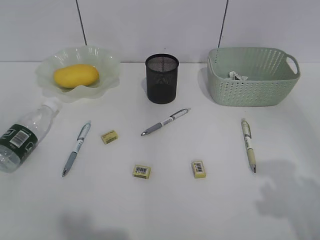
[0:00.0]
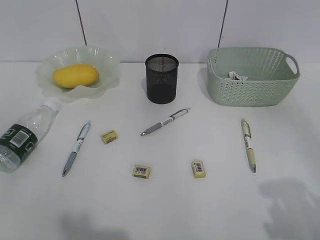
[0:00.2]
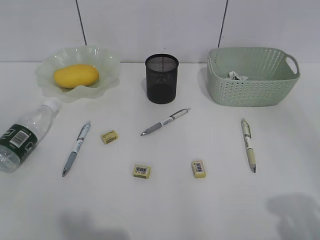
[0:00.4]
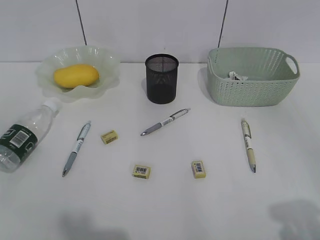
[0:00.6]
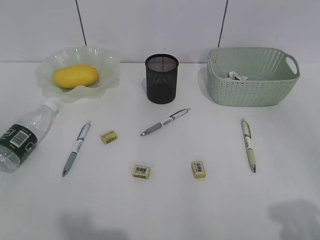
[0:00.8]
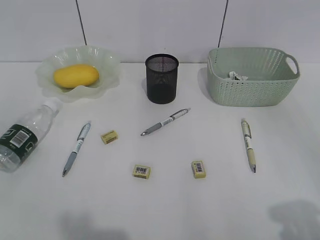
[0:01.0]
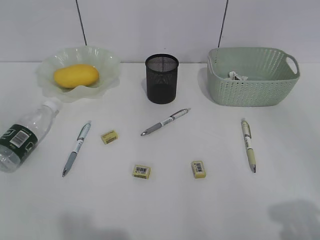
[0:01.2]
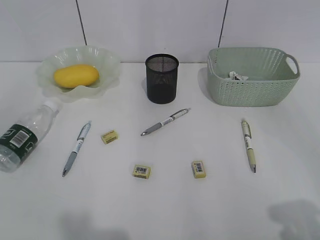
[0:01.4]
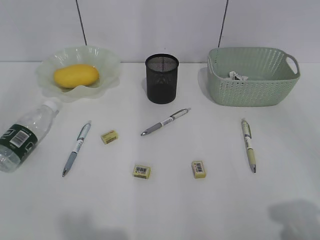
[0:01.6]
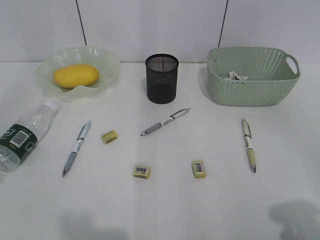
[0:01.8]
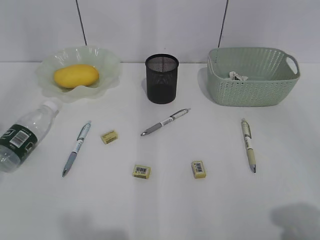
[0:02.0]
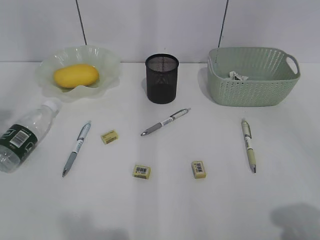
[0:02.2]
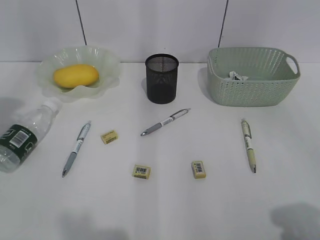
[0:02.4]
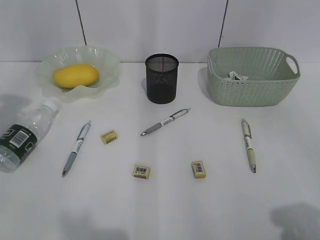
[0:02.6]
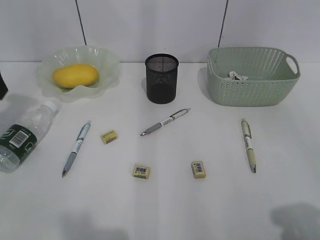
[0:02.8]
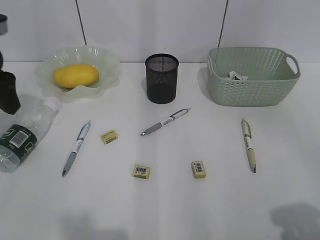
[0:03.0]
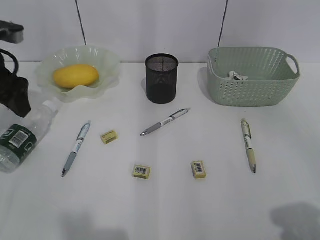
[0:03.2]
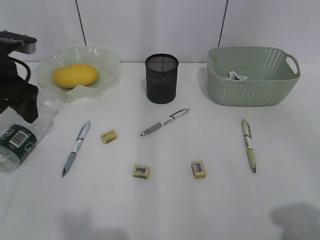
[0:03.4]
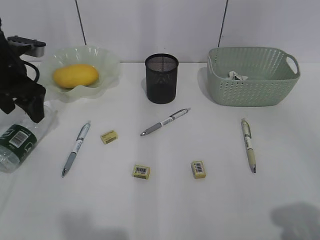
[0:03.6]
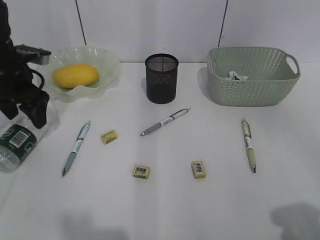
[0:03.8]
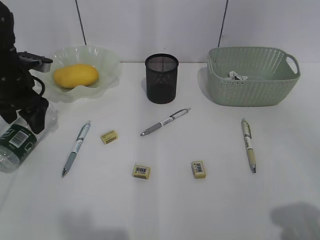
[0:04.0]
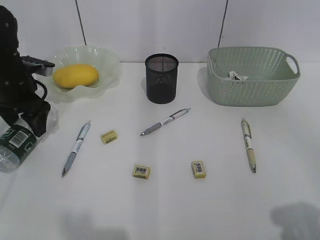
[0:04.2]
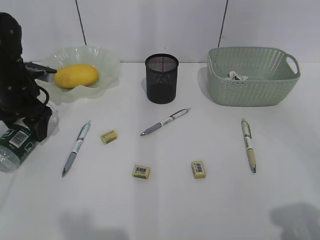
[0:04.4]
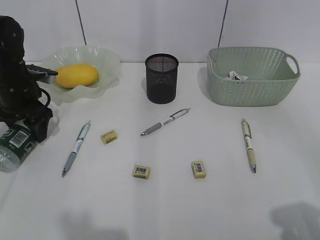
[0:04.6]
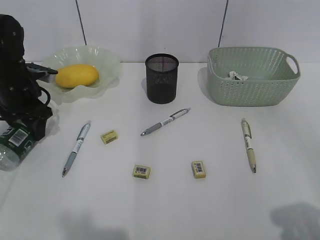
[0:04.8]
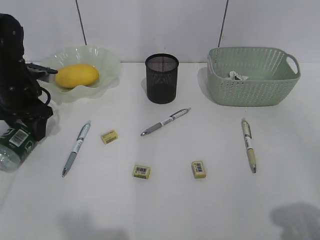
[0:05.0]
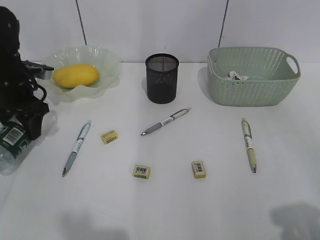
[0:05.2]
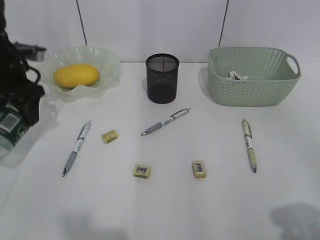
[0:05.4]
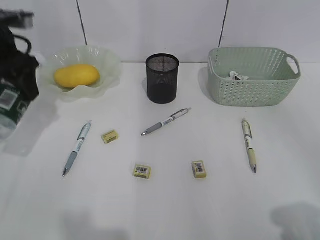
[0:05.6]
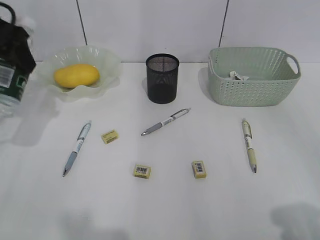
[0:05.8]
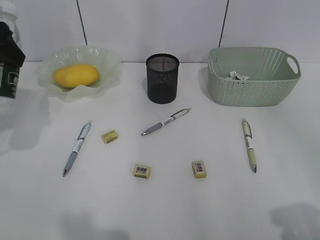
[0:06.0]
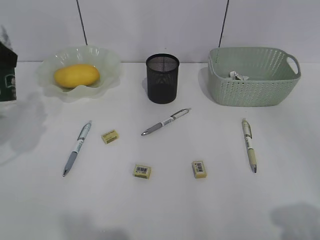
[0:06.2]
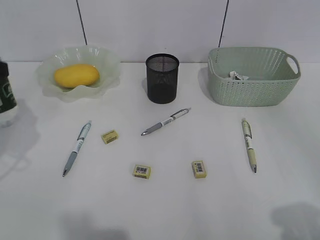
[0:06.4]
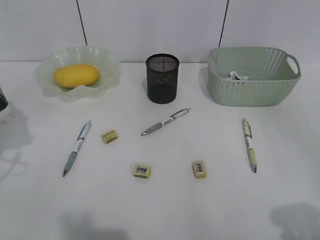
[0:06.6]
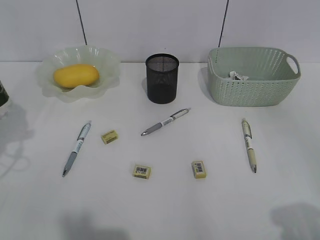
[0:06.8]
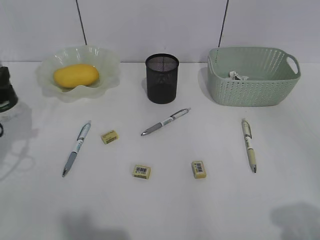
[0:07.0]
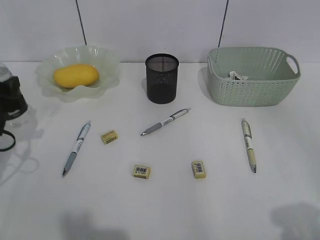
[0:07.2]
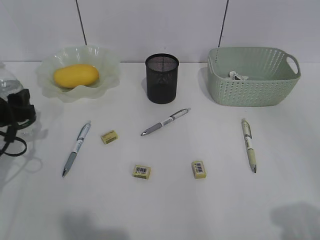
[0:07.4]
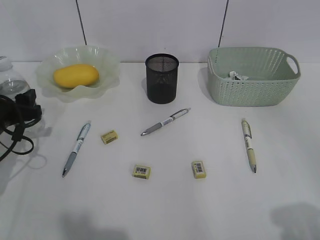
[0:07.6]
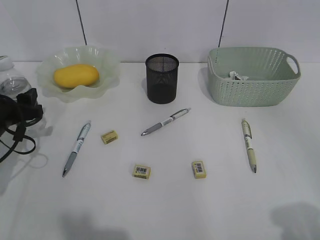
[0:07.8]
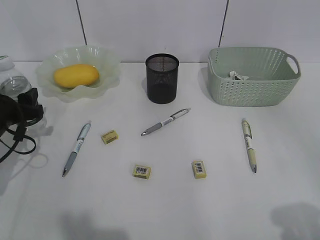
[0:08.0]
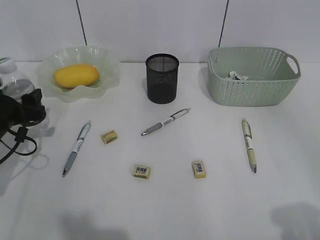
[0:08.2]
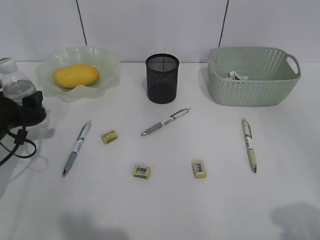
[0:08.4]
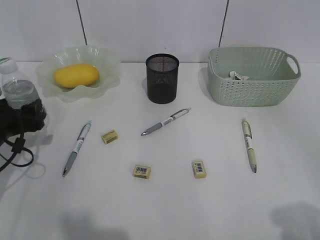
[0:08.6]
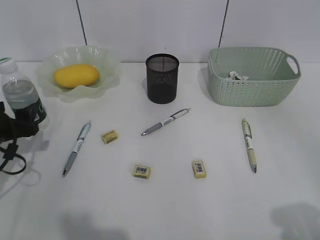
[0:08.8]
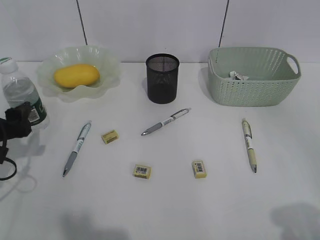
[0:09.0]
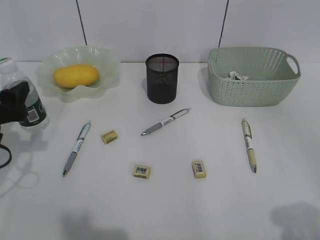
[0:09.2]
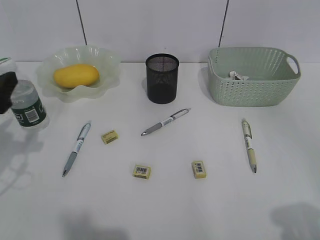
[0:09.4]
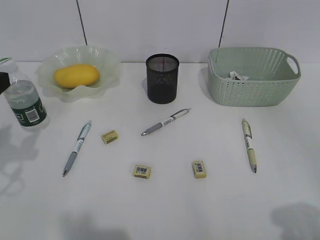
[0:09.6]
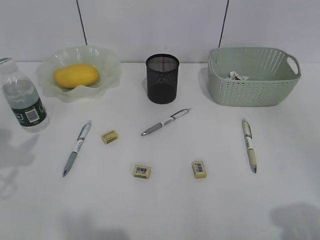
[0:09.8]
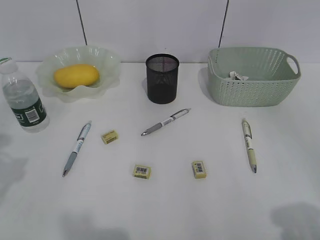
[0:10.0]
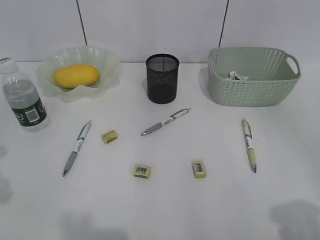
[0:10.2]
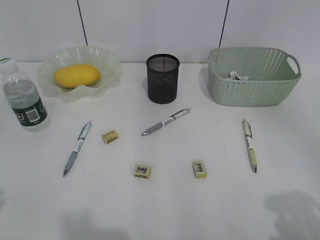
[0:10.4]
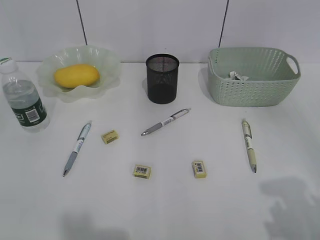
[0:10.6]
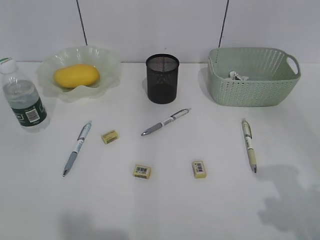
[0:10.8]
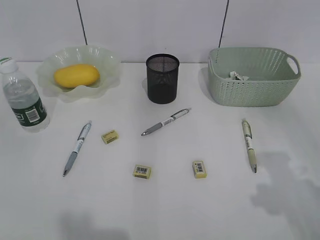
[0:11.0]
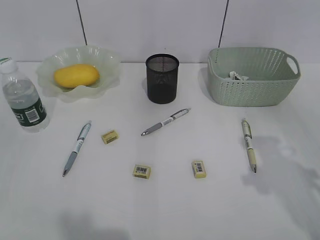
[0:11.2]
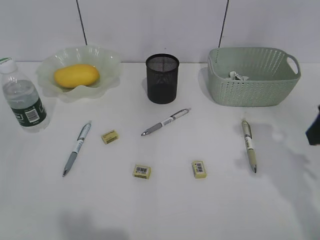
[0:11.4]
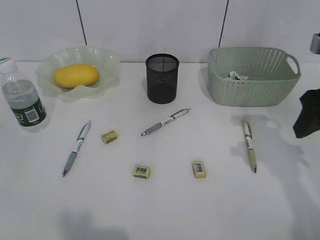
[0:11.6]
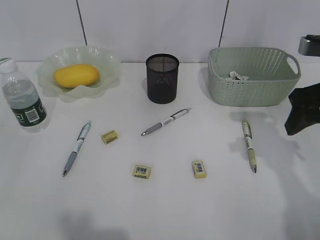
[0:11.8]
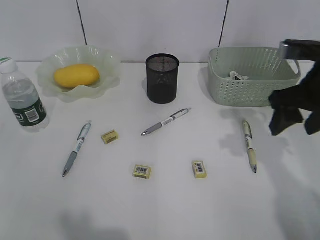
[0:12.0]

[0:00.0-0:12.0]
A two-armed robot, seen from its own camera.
Step, 0:00.0 to 0:04.8: Grasp the bottle with left gripper.
Step, 0:05.0 to 0:08.8: Stand the bottle with left gripper.
0:01.6 to 0:03.0: The left gripper moves forward, approximately 25 cm.
0:03.0 to 0:04.4: The left gripper travels downward and forward by about 15 cm.
0:04.4 to 0:06.0: The left gripper is displaced upward and backward by approximately 20 cm.
0:06.0 to 0:07.6: The left gripper heads downward, covering approximately 20 cm.
0:07.6 to 0:09.0: The left gripper heads backward, covering approximately 5 cm.
0:09.0 to 0:10.4: The left gripper heads upward and backward, covering about 25 cm.
0:10.4 to 0:12.0: The right gripper shifts about 25 cm forward.

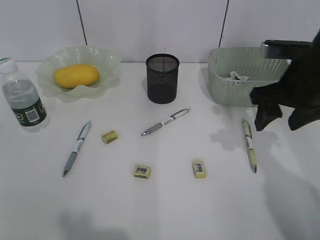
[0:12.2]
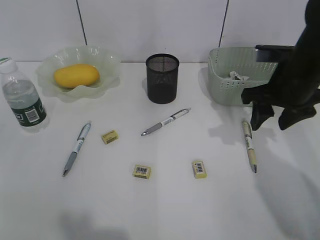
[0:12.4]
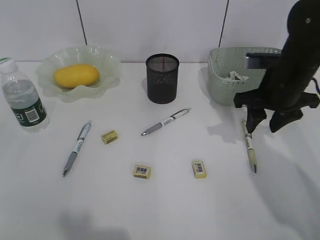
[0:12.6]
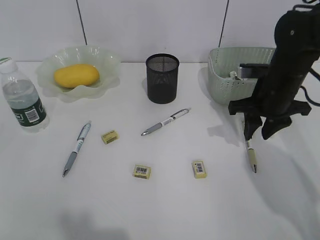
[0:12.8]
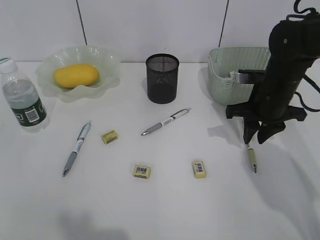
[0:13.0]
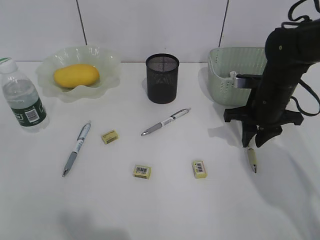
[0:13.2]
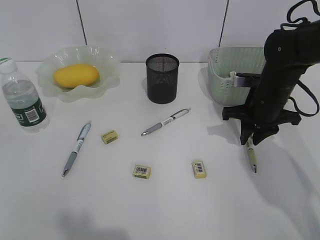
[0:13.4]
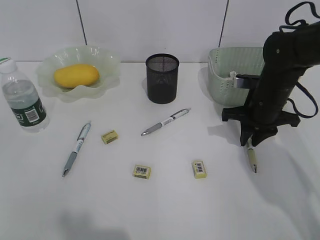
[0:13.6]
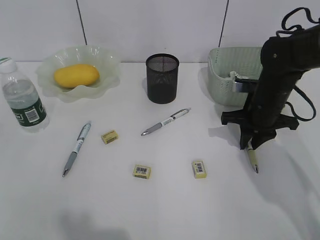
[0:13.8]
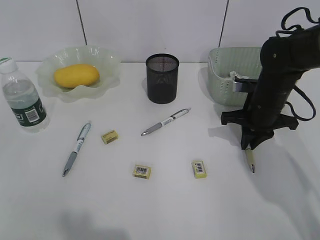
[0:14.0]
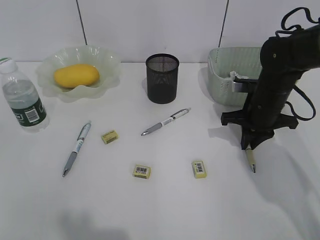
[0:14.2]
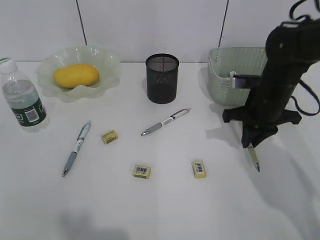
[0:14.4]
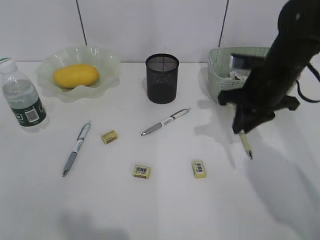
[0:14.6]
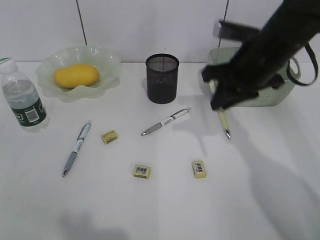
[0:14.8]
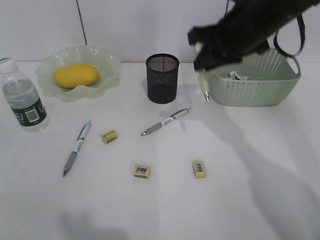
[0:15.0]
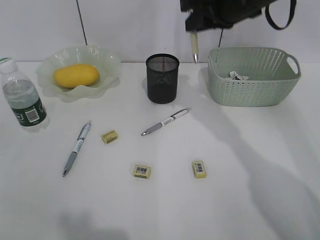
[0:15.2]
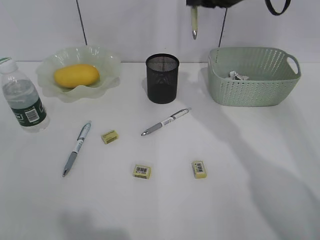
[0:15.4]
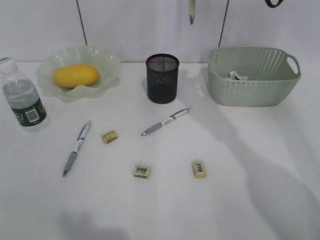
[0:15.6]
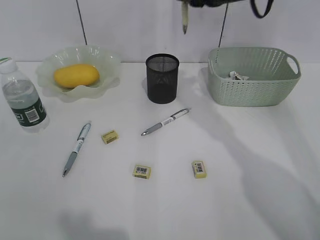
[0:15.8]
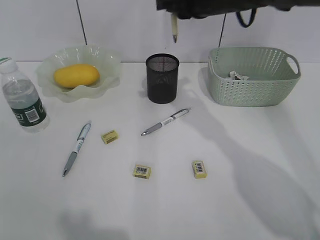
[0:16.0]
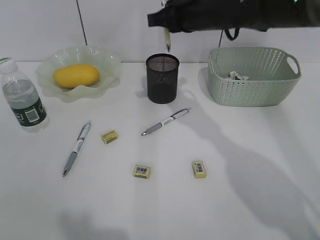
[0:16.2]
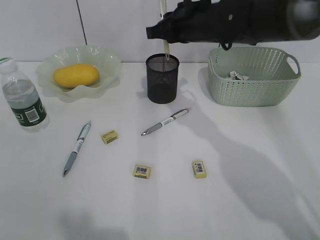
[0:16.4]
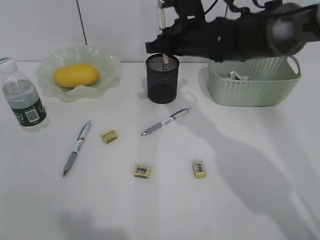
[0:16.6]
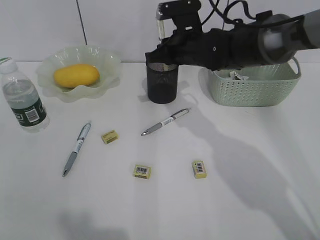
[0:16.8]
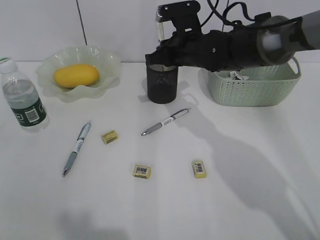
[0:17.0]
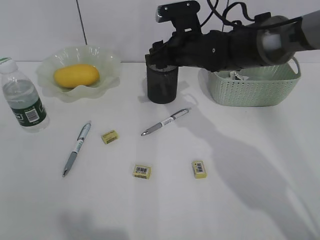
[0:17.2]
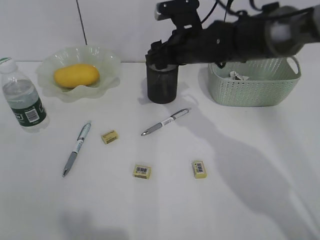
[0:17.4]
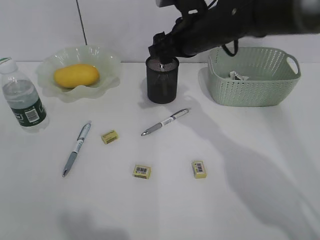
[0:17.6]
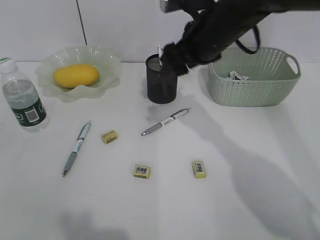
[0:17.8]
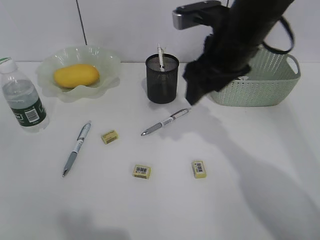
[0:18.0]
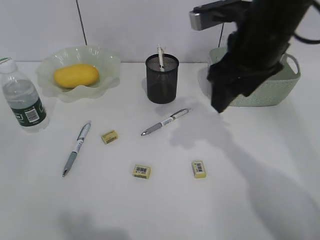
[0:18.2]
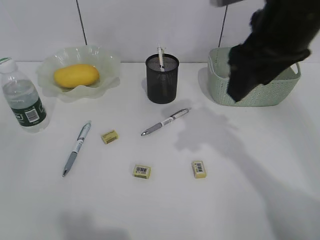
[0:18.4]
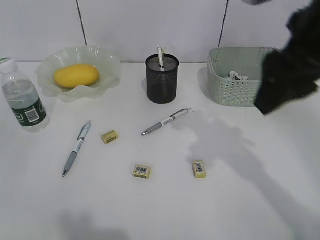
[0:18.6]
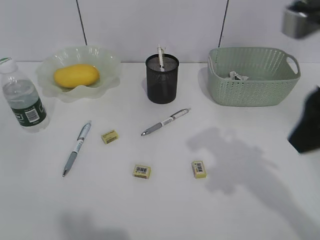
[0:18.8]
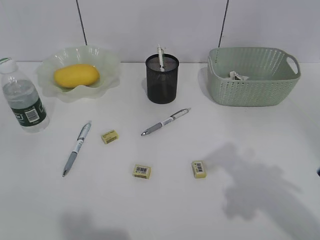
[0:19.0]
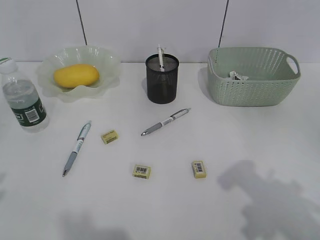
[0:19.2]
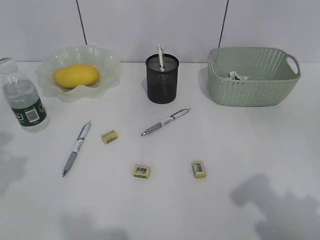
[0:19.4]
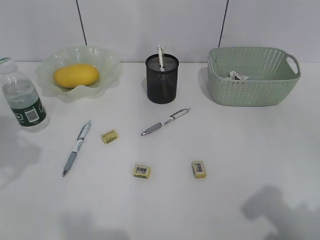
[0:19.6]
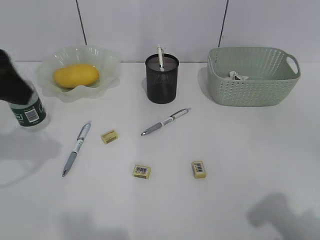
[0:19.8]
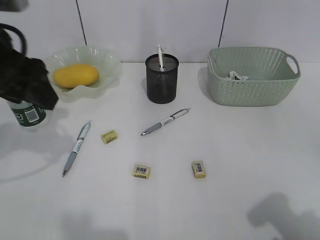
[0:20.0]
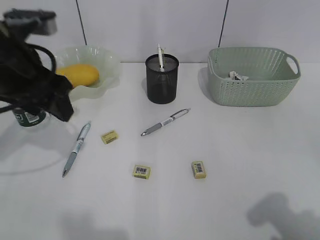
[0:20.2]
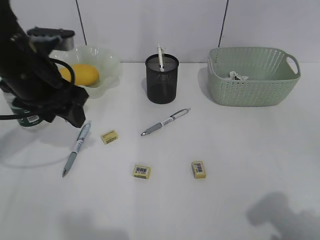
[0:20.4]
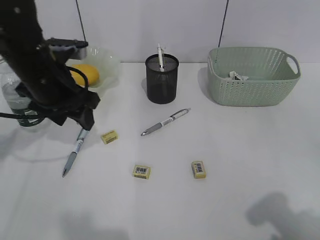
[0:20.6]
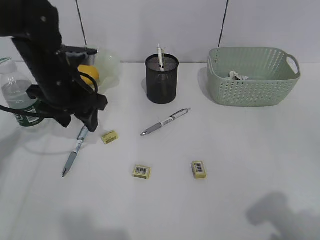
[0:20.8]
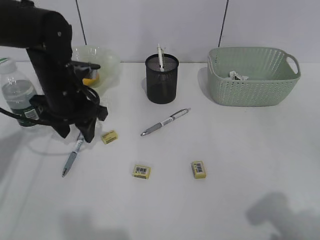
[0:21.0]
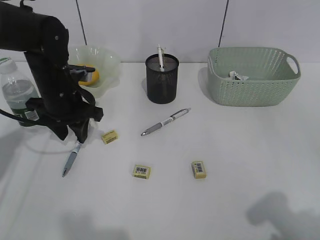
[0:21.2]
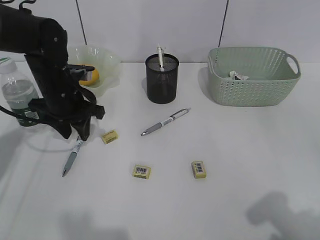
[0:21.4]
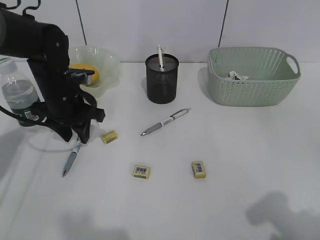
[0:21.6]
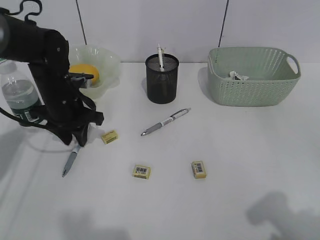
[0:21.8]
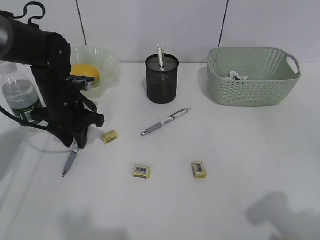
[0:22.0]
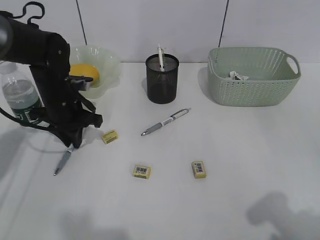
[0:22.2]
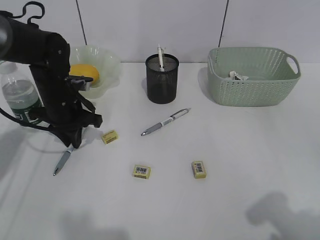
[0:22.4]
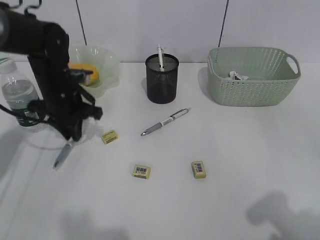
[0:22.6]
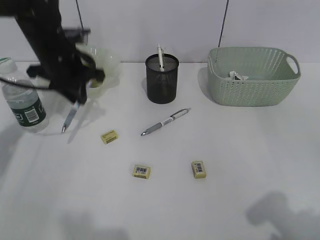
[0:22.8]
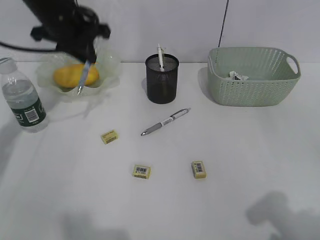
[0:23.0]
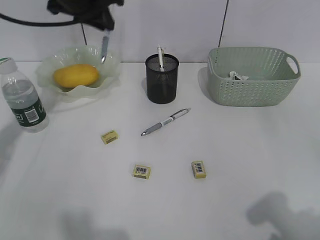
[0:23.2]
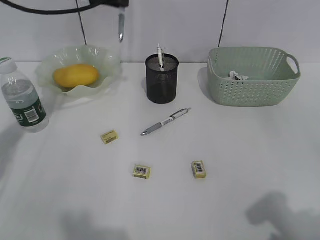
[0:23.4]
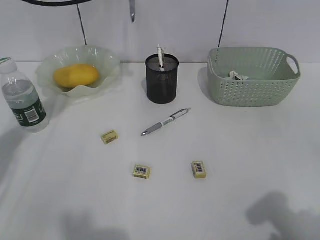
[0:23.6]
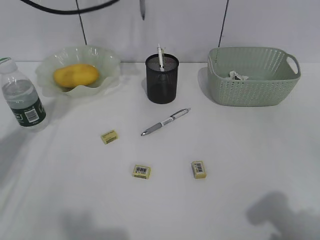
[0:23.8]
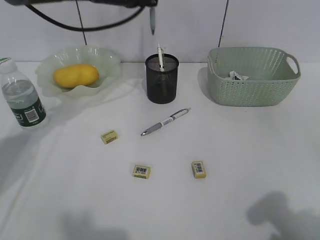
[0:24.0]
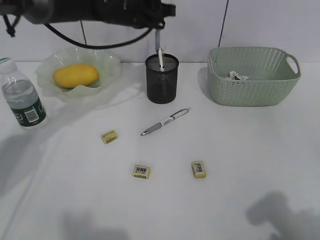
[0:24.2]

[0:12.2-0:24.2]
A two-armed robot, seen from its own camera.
Step, 0:14.2 to 0:17.2: Place the yellow pen in pen holder with right gripper.
Step, 0:17.4 to 0:22.4: Grasp the blue pen with left gripper.
0:12.2 to 0:13.8: The right gripper shifts approximately 10 cm downward and forward, and closes.
0:13.8 to 0:15.2: The right gripper heads upward and to the left, covering approximately 20 cm.
0:15.2 to 0:16.6: The right gripper travels downward, forward and to the left by some 15 cm.
0:16.6 to 0:18.2: The right gripper travels backward, upward and to the right by about 15 cm, and opens up.
0:18.2 to 0:19.8: The right gripper moves backward and to the right, approximately 30 cm. The left gripper moves forward and to the right, some 20 cm.
0:19.8 to 0:21.2: The left gripper moves downward and forward, roughly 20 cm.
0:21.2 to 0:22.6: The left gripper closes.
0:22.6 to 0:24.2: The left gripper heads to the right, upward and forward, covering roughly 20 cm.
